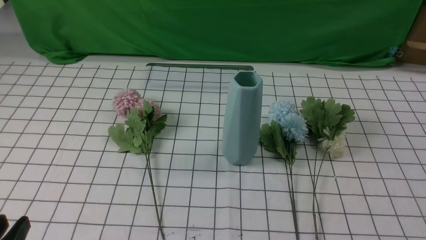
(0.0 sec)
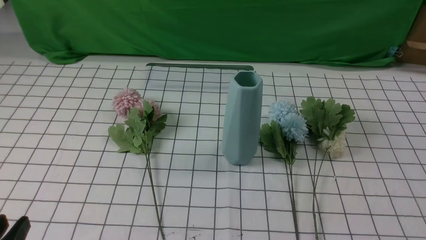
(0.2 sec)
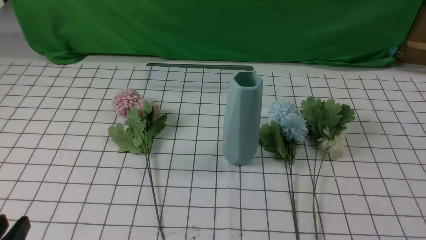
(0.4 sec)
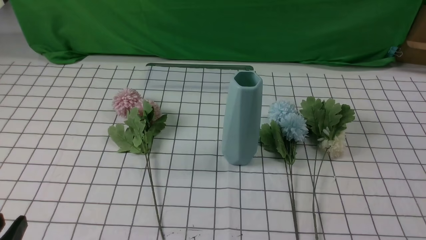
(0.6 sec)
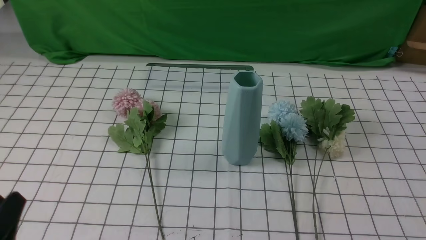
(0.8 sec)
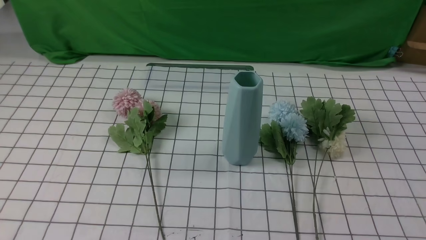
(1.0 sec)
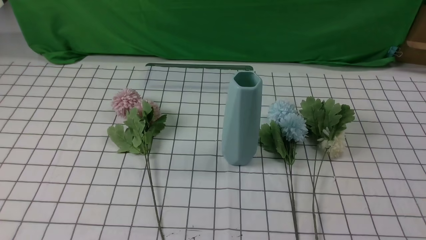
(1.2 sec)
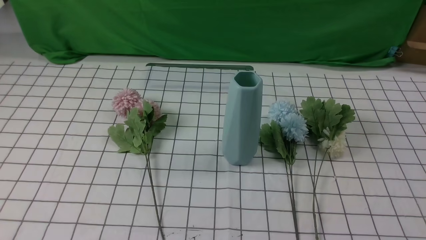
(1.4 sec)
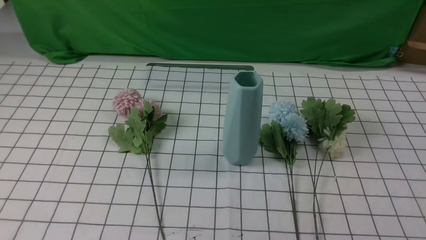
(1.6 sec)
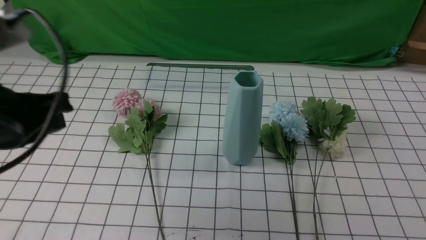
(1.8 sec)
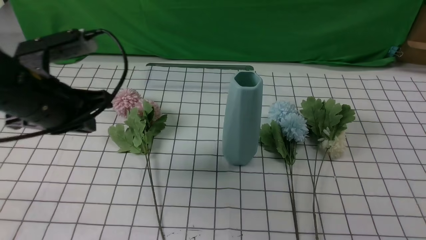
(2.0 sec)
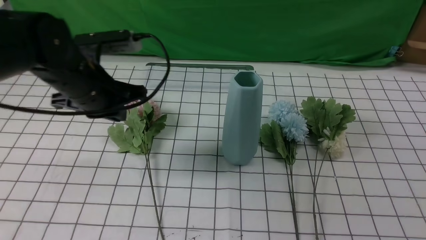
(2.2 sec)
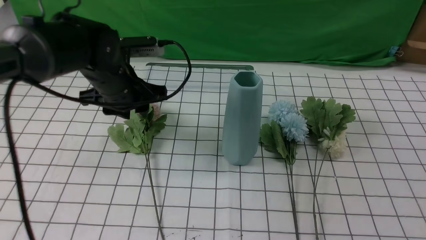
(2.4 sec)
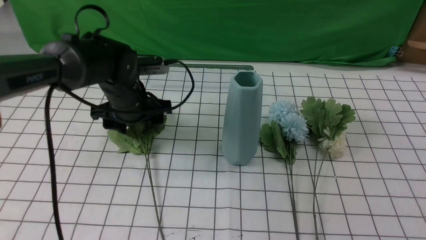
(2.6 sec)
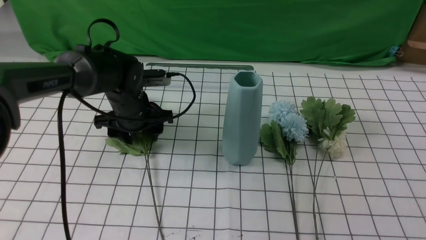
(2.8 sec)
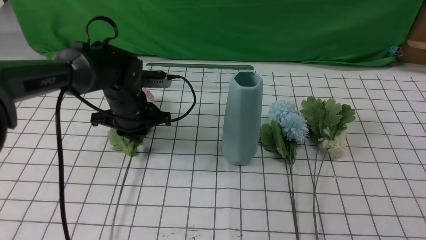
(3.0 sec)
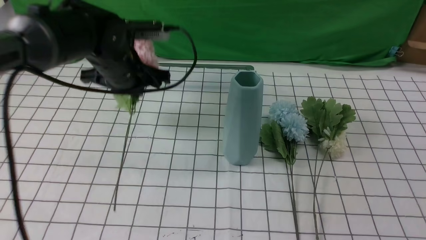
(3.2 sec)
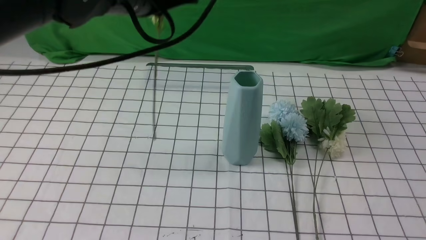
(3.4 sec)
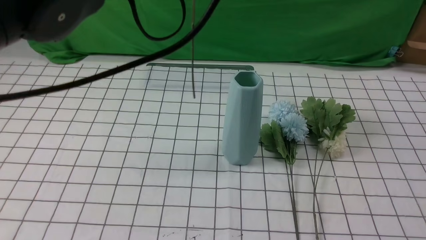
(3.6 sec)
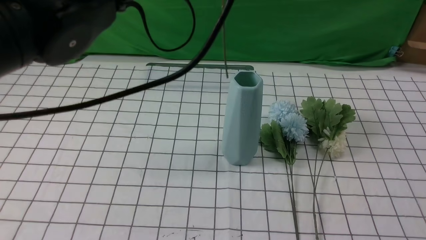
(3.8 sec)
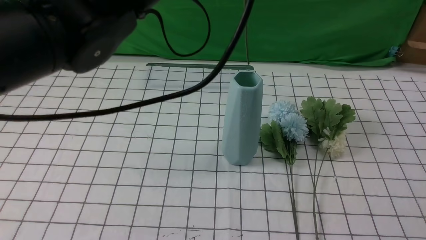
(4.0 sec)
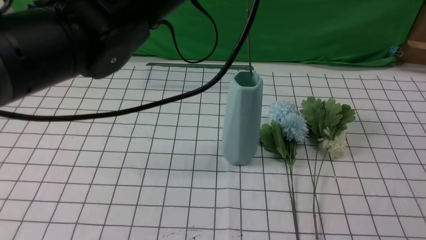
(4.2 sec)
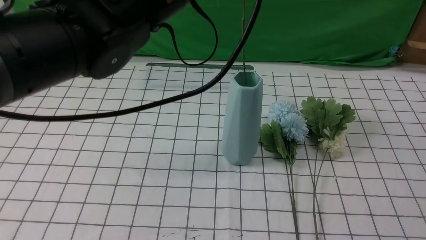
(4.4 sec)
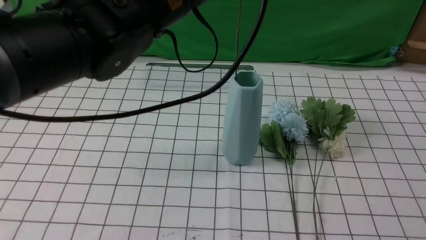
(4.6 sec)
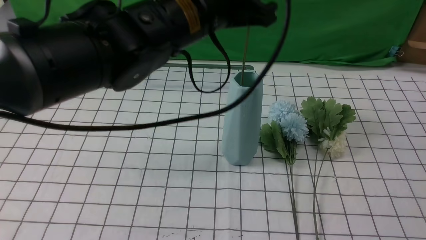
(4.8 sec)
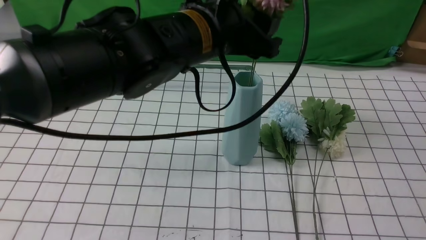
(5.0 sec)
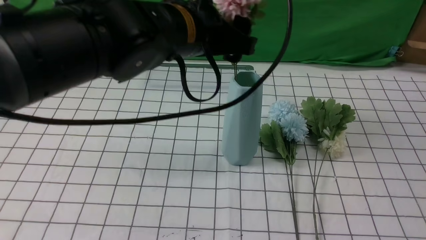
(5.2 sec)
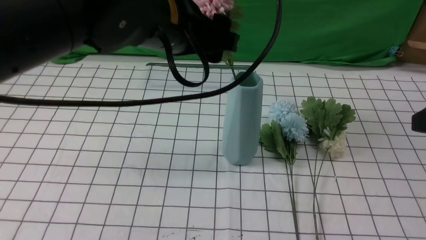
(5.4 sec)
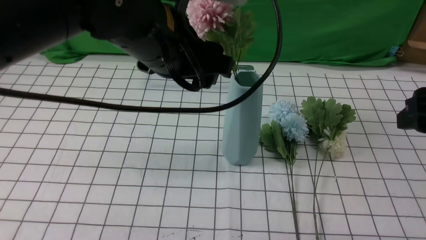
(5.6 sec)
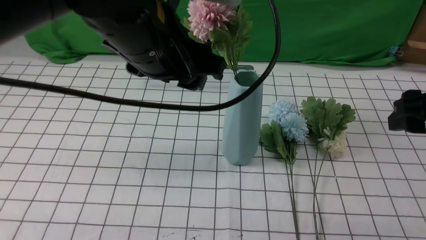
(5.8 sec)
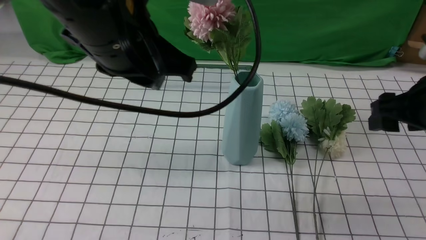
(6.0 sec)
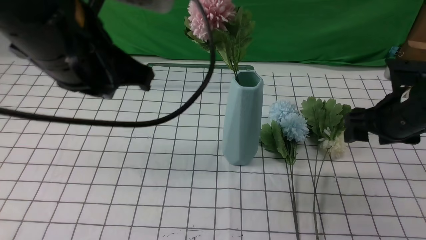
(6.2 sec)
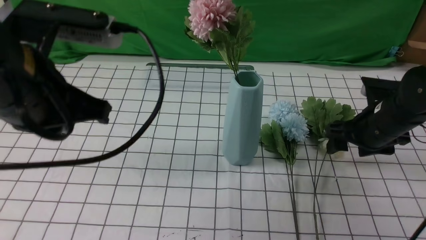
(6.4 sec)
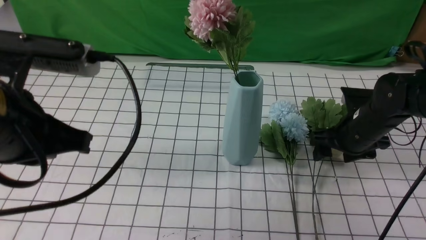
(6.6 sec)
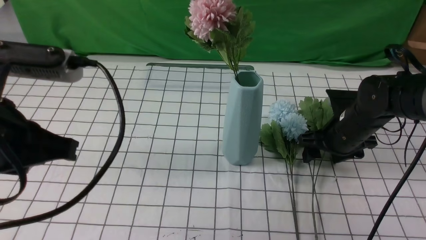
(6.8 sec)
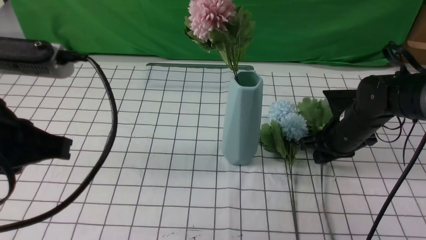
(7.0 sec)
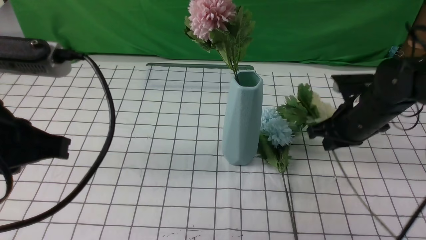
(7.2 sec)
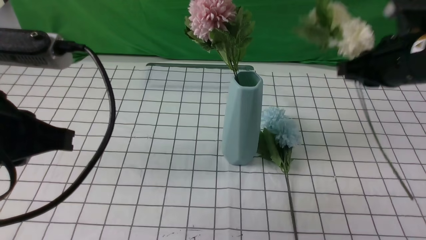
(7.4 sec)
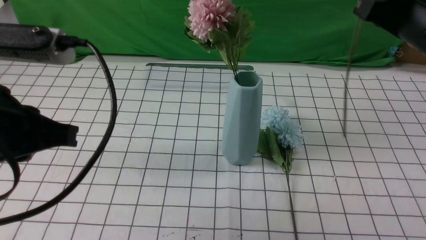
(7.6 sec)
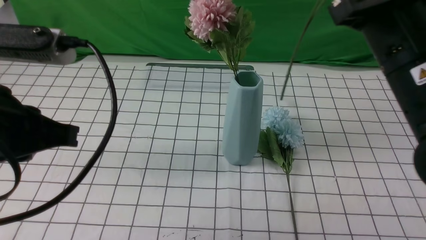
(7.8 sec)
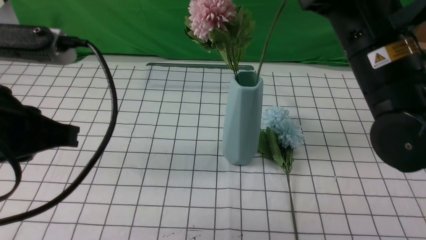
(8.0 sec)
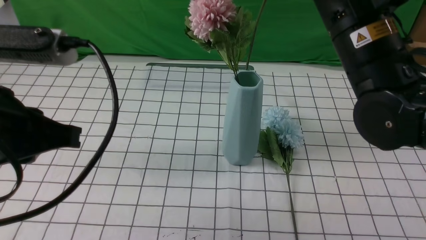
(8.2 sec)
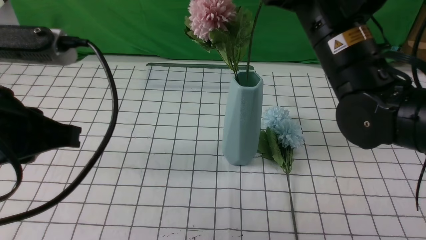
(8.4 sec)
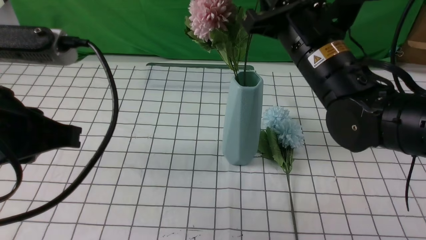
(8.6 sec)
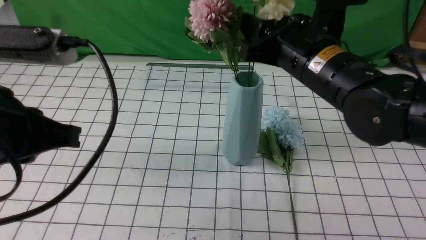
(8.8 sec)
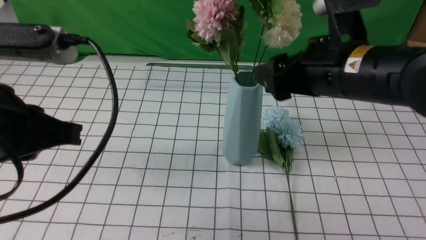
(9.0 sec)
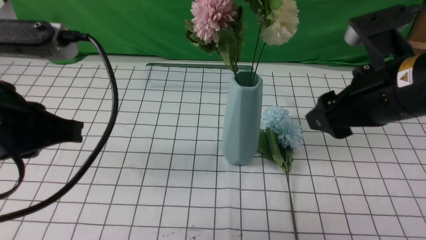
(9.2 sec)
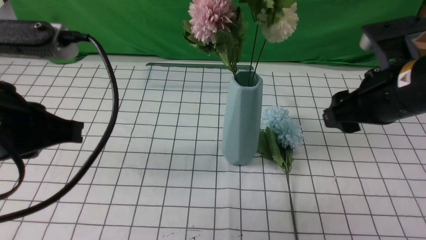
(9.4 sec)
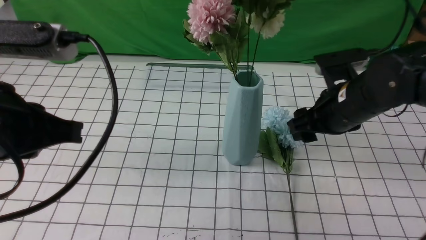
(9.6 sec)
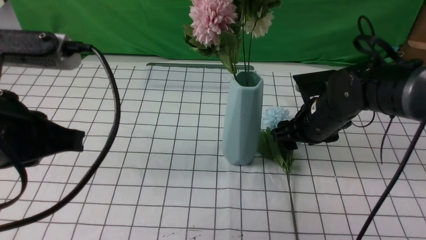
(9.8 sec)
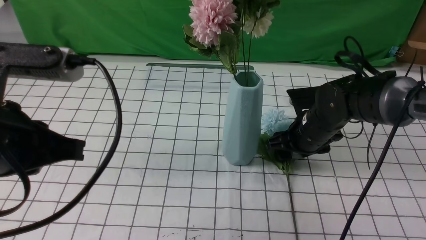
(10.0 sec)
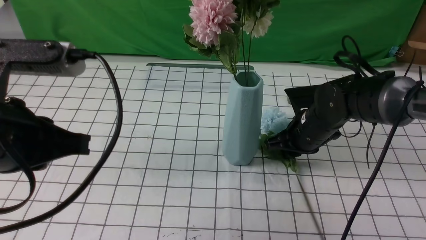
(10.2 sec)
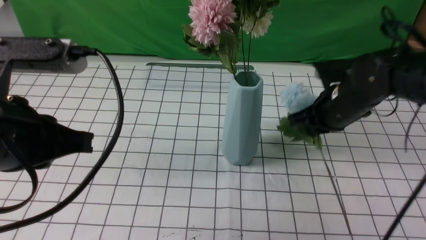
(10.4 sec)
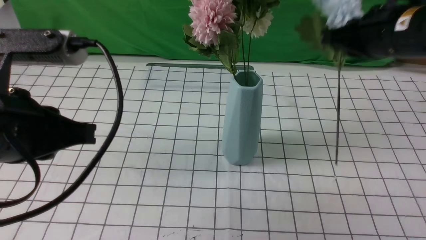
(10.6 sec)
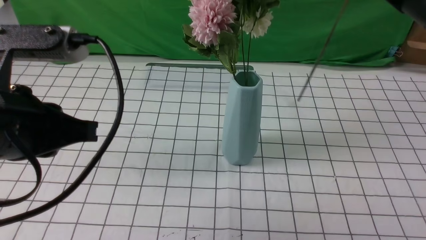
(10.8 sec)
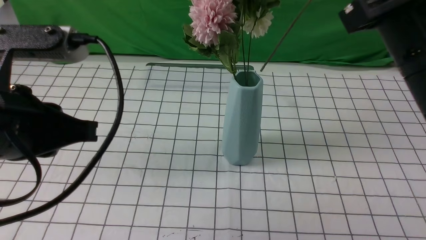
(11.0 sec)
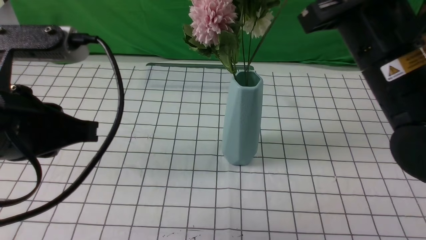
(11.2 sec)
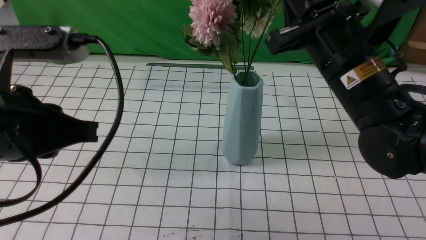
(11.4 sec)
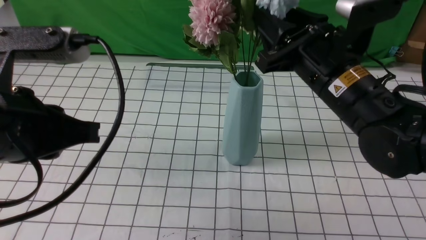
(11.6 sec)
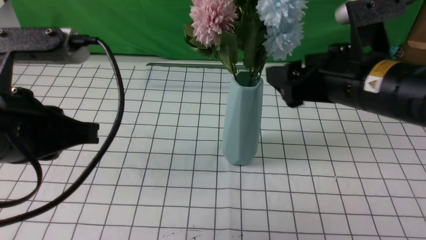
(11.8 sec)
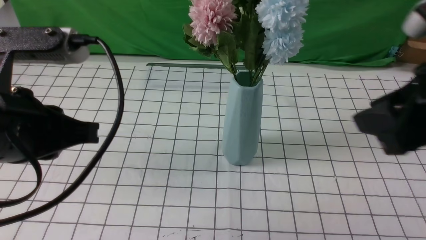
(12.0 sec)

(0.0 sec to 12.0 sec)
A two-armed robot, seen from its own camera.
Task of the whole recording: insert the flowers into the vase on the table with the white tablecloth.
Step, 0.0 sec - 2.8 sec: use the left arm to grab a bunch of fresh flowers.
Step, 3.2 sec - 5.6 sec: use the left arm to insert the flowers into the vase.
Step, 5.8 sec - 7.0 sec: use the right arm to grab a bunch of fresh flowers.
Step, 7.2 sec - 9.2 sec: use the right arm to insert the flowers into the vase.
Step, 9.4 sec - 10.2 sec: use the right arm to grab a bunch of fresh flowers.
Step, 10.4 sec - 11.8 sec: use the right arm to insert the flowers into the vase.
1.6 sec - 3.0 sec: The left gripper is displaced forward and downward by about 30 cm, and opens and closes again. The right gripper moves upward and forward, some 15 cm, and opens.
3.0 sec - 4.4 sec: The left gripper moves upward, backward and to the right, about 25 cm.
4.4 sec - 6.0 sec: The right gripper travels forward by roughly 15 cm, while the left gripper goes about 5 cm backward, and opens and closes again.
6.0 sec - 7.6 sec: The right gripper travels upward and to the left by about 10 cm, and closes its fingers. The left gripper moves to the left and backward, roughly 15 cm.
7.6 sec - 9.0 sec: The right gripper goes about 5 cm to the left, and opens its fingers.
9.0 sec - 10.4 sec: The right gripper heads forward and downward, covering roughly 10 cm, and closes its fingers.
10.4 sec - 12.0 sec: The right gripper moves forward and backward over roughly 20 cm, changing direction 2 times, and opens its fingers.

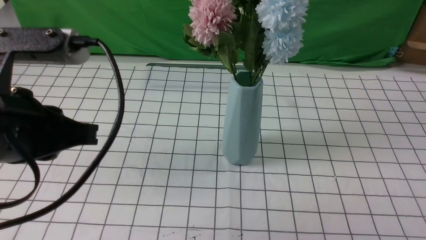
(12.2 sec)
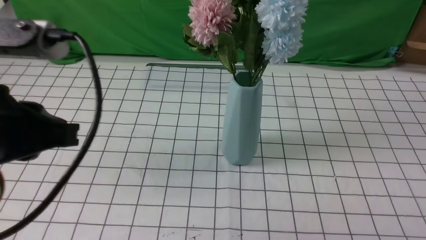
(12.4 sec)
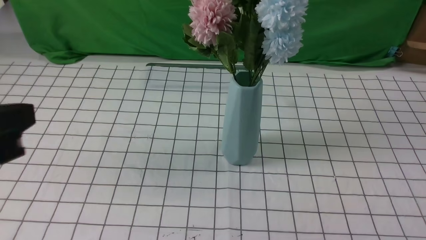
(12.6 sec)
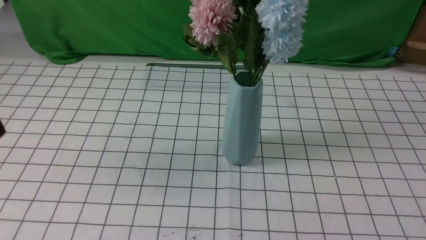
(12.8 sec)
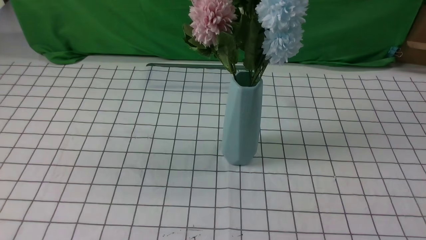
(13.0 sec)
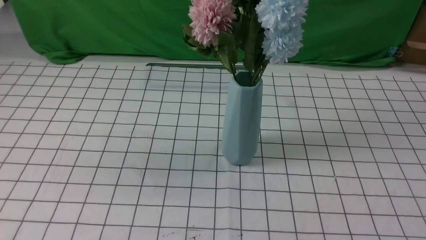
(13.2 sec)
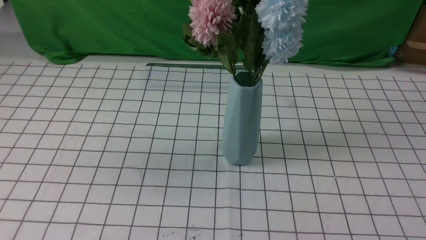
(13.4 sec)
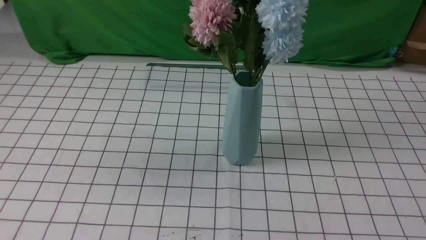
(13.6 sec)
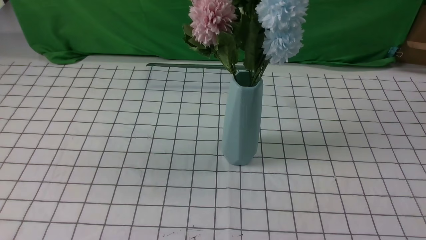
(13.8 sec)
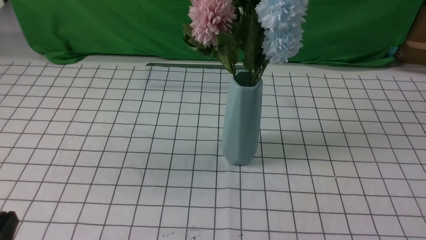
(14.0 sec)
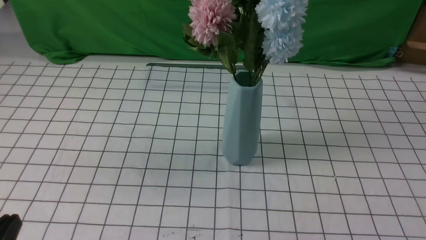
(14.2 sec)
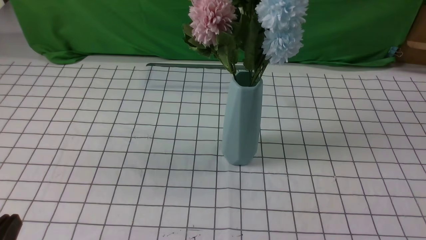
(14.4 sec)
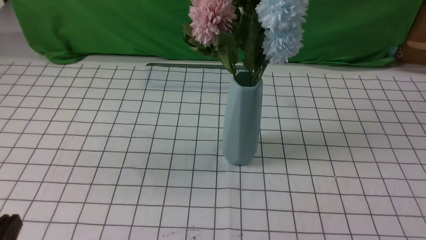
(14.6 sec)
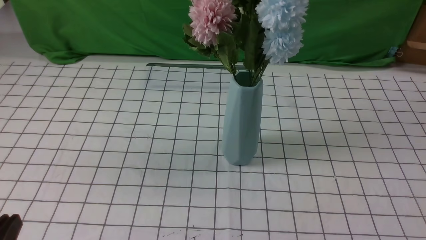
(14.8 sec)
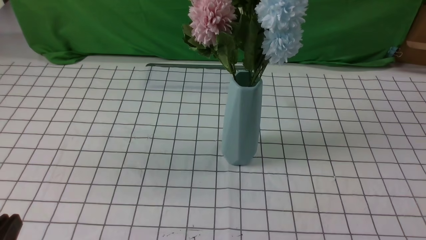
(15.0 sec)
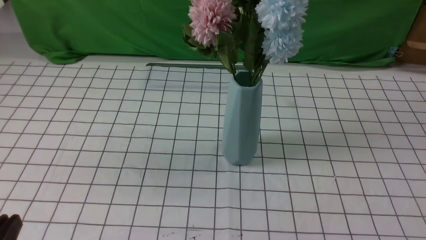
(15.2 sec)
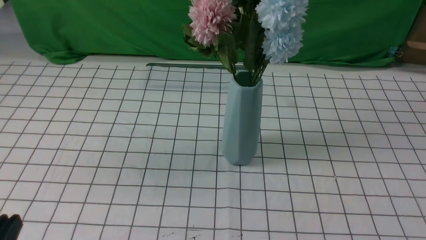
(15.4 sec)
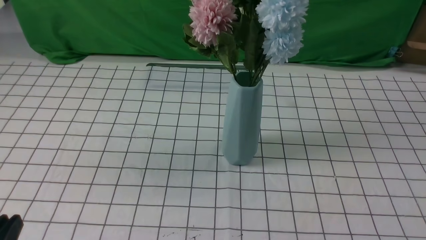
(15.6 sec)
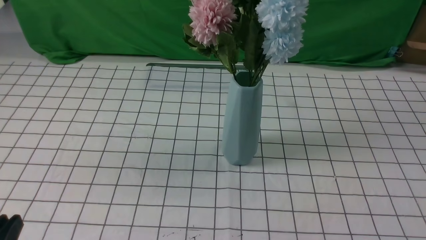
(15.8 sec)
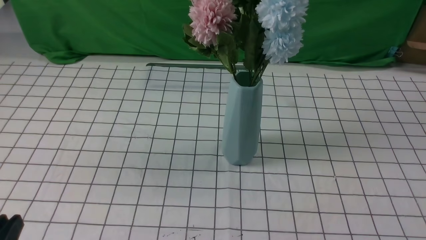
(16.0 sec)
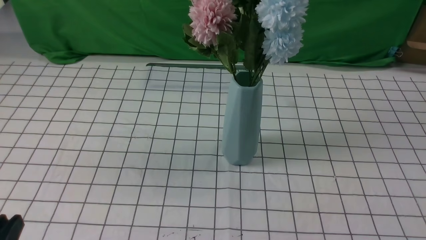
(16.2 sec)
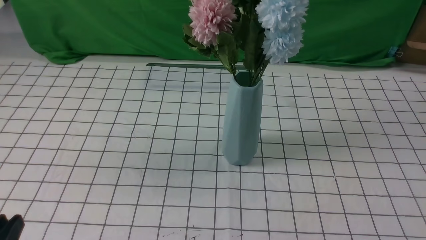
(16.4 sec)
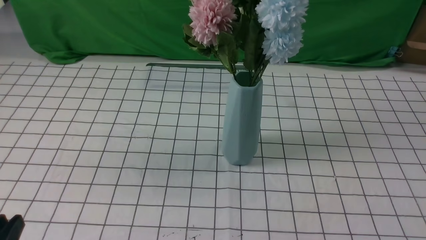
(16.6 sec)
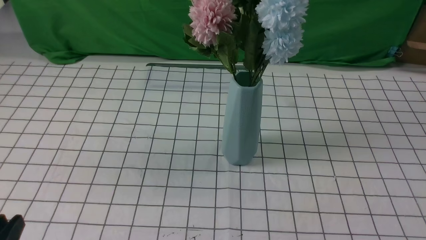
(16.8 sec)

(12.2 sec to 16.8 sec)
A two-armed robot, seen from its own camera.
Task of the whole recording: insert the flowers into the vase on the table with the white tablecloth.
12.2 sec - 13.8 sec: The left gripper travels backward, downward and to the left by some 15 cm. Meanwhile the right gripper is displaced downward and backward by roughly 10 cm.
